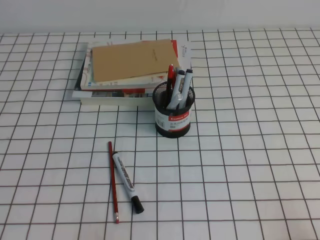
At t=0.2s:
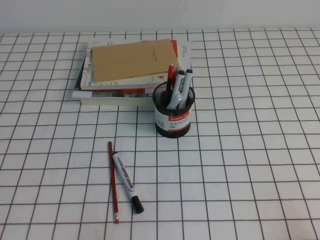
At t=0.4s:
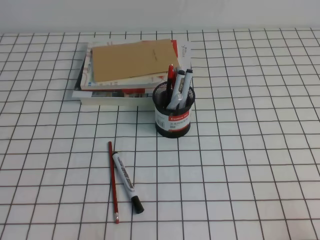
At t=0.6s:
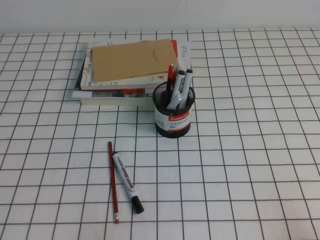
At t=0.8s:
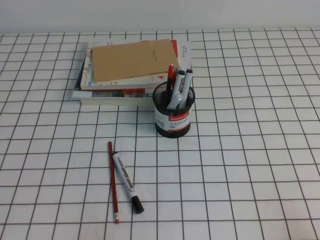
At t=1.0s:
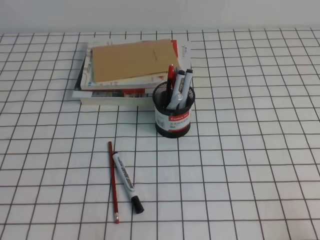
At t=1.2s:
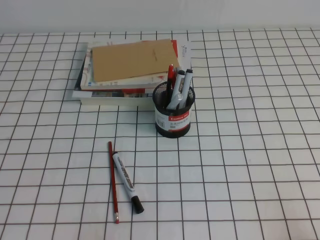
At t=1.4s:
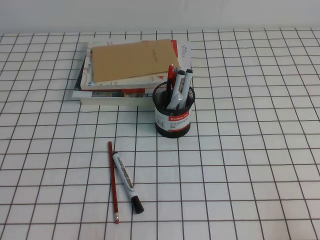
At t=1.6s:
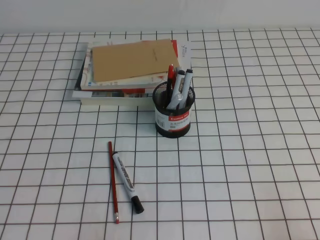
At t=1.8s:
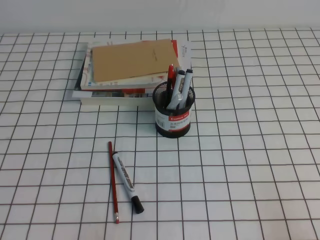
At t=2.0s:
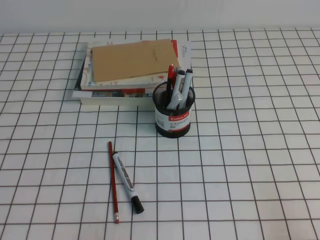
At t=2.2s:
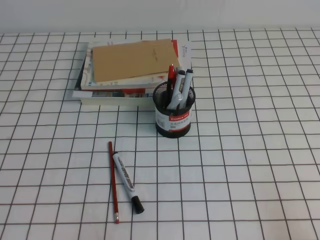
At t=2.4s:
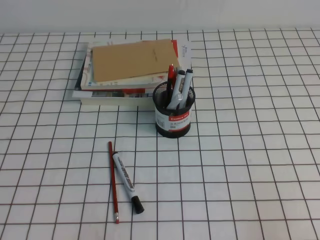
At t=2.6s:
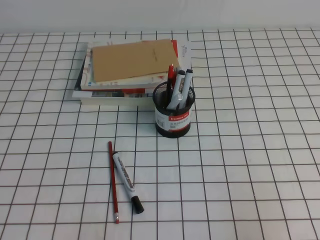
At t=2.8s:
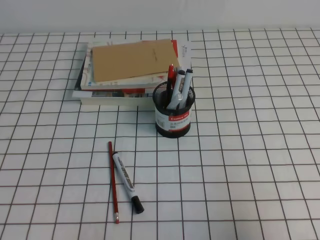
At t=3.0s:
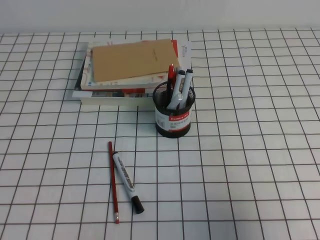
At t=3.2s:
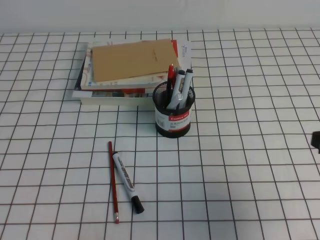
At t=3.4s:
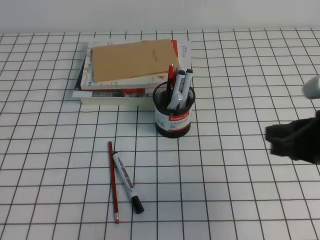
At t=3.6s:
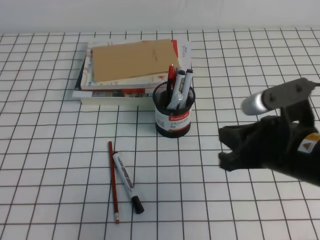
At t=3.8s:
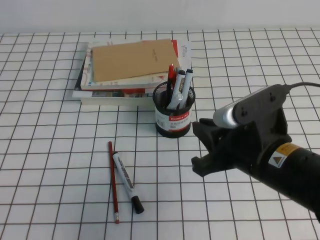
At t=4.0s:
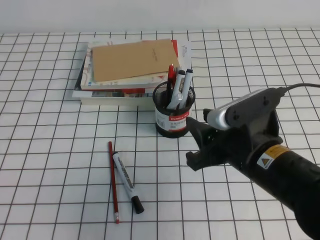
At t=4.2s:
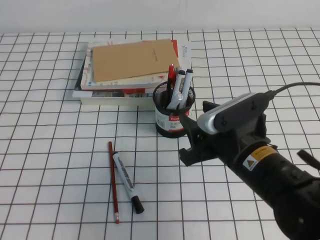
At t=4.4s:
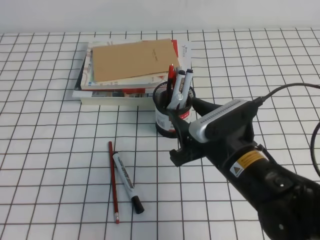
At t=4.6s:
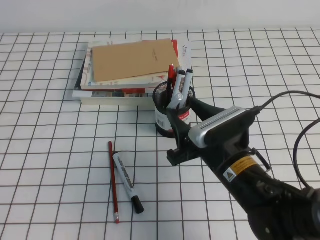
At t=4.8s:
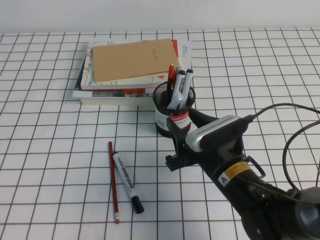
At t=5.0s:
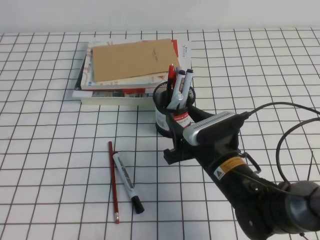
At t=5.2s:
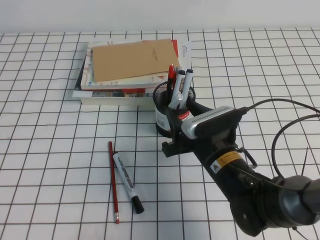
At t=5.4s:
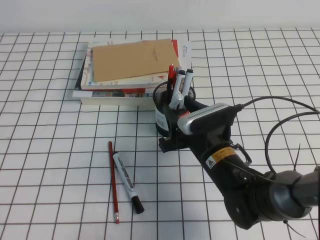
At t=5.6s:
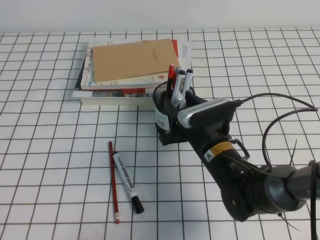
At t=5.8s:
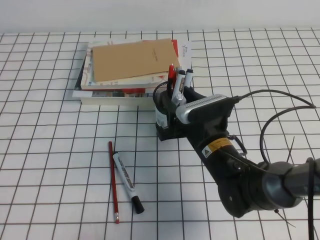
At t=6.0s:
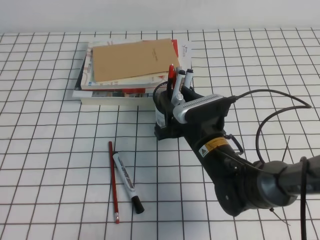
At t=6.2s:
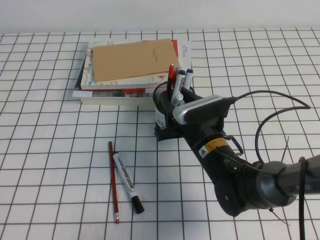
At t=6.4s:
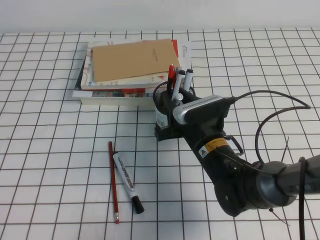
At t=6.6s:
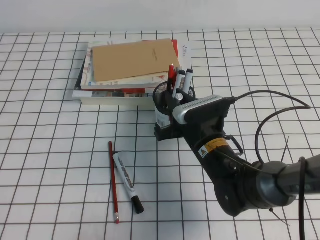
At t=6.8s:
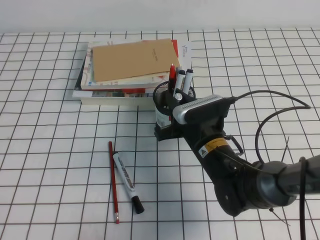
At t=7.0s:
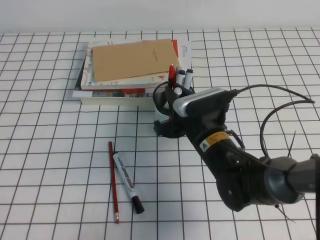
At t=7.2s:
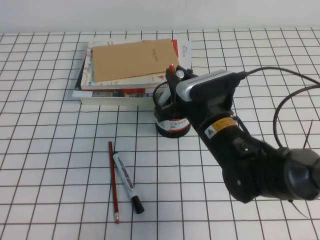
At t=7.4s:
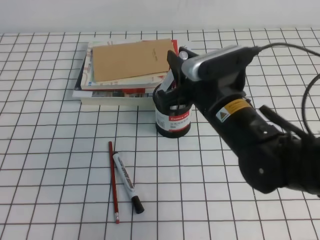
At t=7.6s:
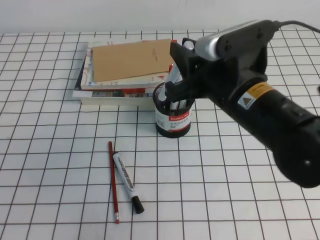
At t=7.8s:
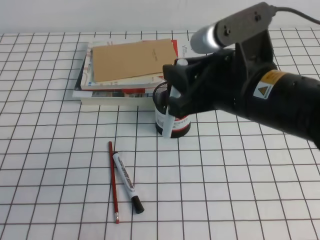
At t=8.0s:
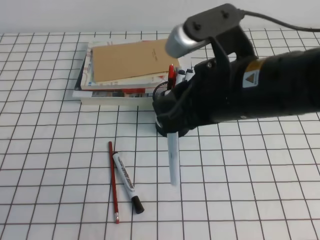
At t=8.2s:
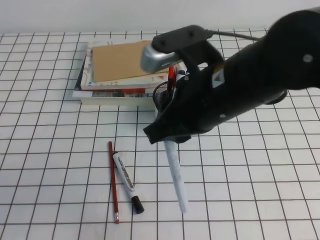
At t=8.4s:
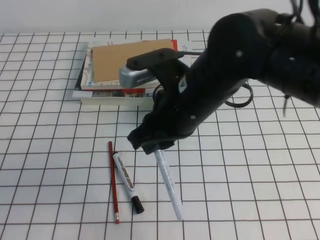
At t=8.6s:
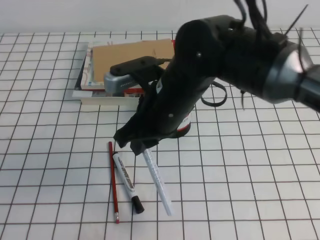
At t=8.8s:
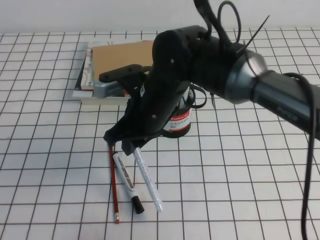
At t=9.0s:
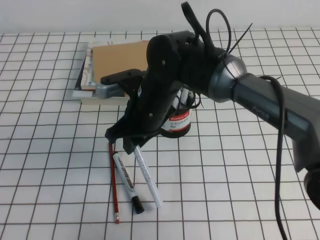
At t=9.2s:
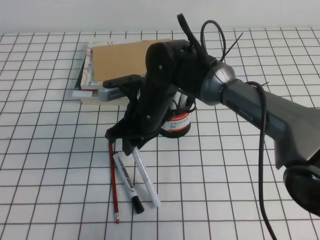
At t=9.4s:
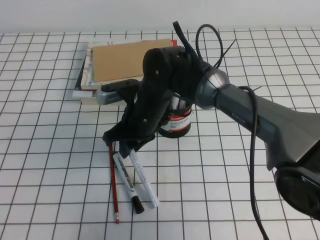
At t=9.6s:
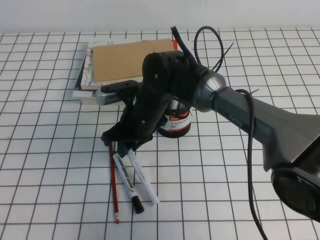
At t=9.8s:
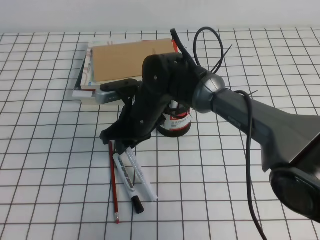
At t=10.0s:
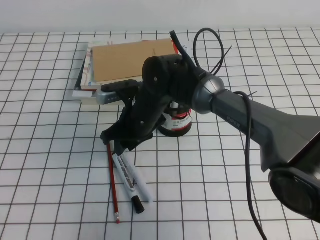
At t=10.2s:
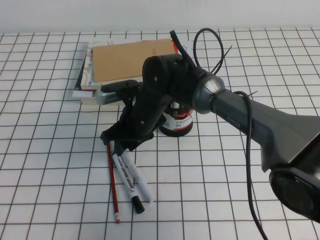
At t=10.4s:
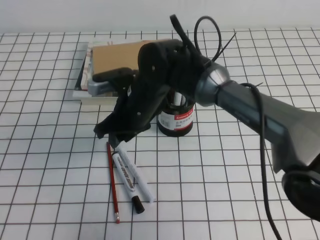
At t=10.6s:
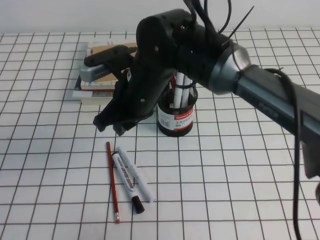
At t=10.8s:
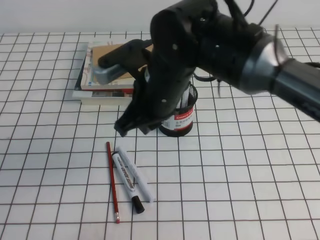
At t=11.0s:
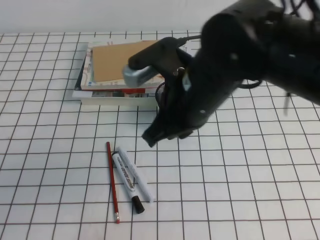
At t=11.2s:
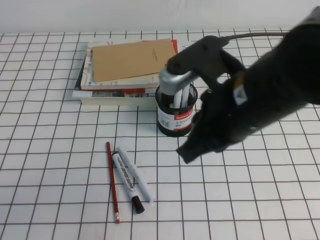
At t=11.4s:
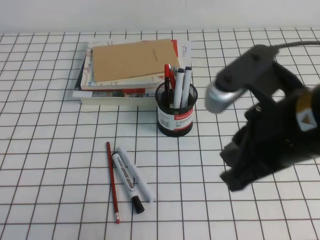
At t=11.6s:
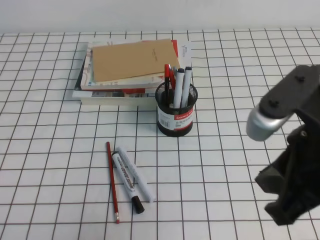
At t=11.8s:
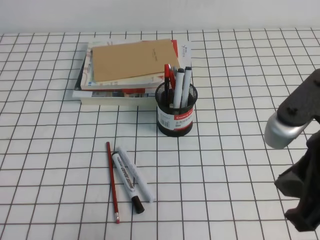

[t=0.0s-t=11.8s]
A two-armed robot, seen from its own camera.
t=1.4s to t=3.0s: The right gripper is displaced upward and forward by roughly 15 cm.
t=3.0s to t=4.4s: The right gripper is displaced to the left and forward by approximately 20 cm, and opens its fingers.
t=4.4s to t=6.0s: The right gripper goes roughly 10 cm forward and downward.
t=6.0s to t=7.4s: The right gripper is displaced upward by approximately 10 cm, and closes its fingers.
t=7.4s to t=8.8s: The right gripper travels to the left by roughly 10 cm.
t=8.8s to t=10.4s: The right gripper ends up roughly 5 cm from where it was.
t=10.4s to t=11.8s: The right gripper is displaced to the right, backward and upward by about 35 cm, and closes.

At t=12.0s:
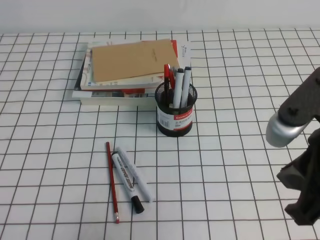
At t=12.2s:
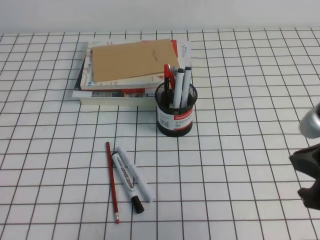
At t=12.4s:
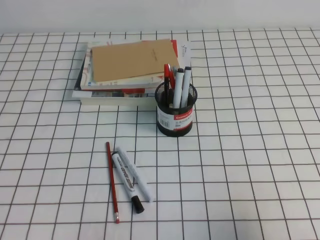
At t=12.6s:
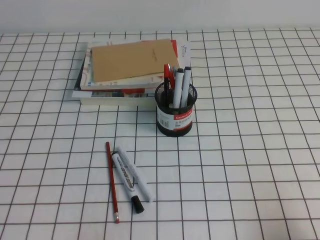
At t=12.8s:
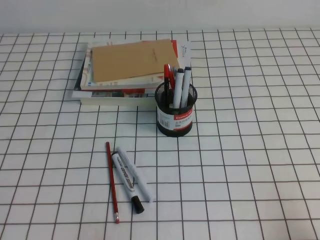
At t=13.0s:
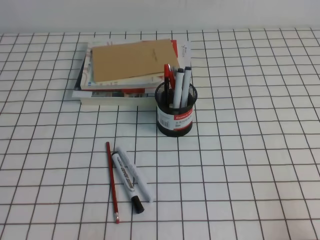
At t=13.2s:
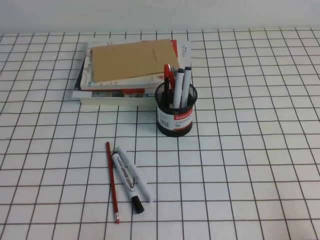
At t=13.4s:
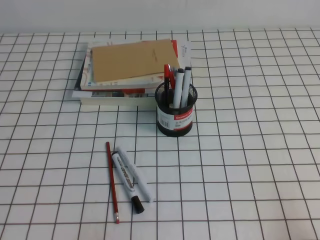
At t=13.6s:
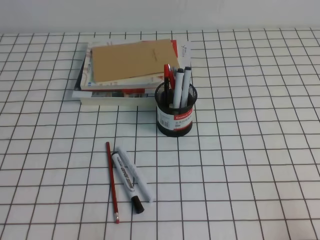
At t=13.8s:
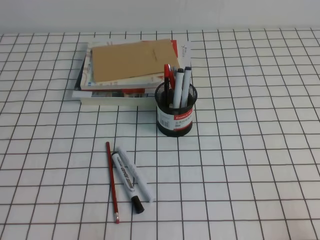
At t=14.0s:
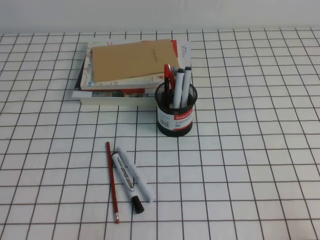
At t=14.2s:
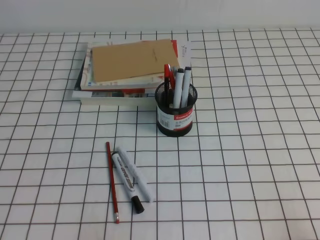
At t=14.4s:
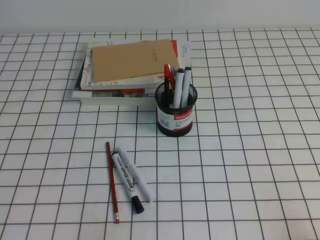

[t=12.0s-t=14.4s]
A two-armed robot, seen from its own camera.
Step, t=12.0s to t=14.4s: Pick up the pen from the pen holder.
t=12.0s to t=13.2s: The right gripper shifts some 25 cm downward, to the right and backward.
